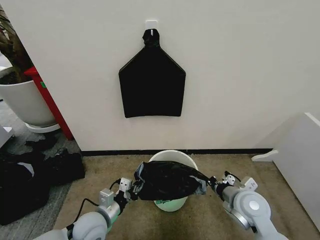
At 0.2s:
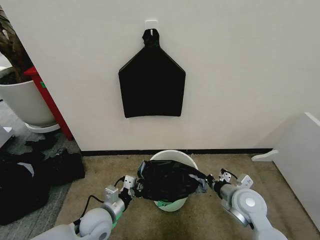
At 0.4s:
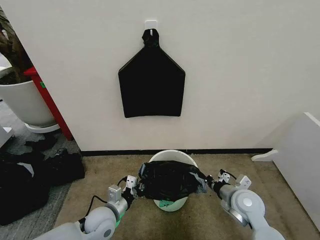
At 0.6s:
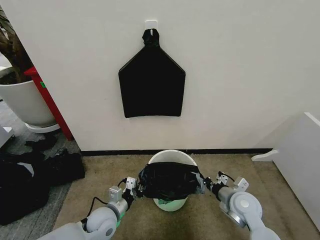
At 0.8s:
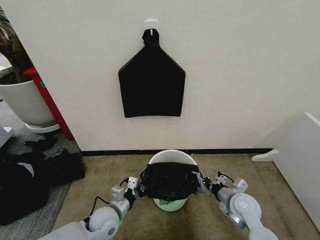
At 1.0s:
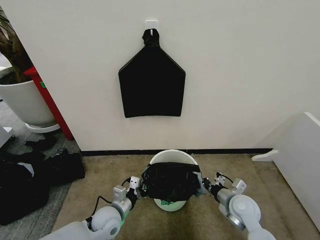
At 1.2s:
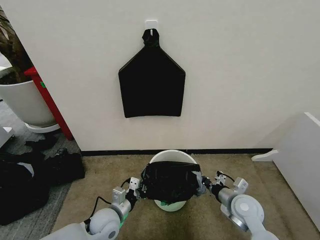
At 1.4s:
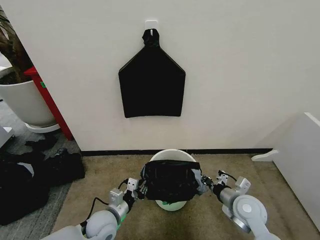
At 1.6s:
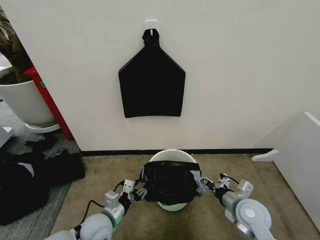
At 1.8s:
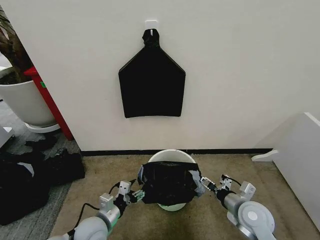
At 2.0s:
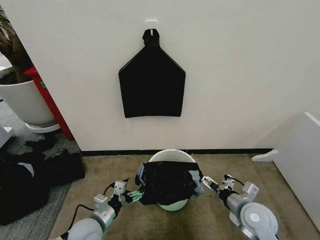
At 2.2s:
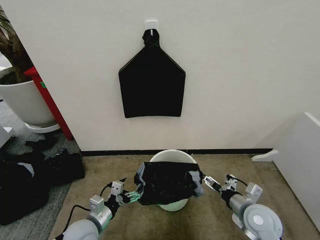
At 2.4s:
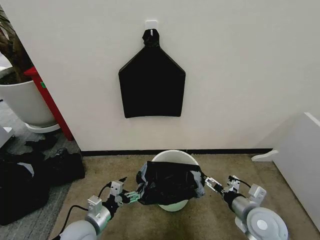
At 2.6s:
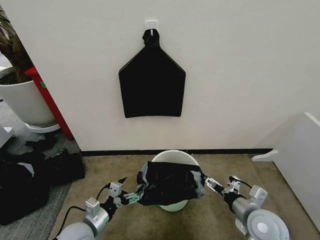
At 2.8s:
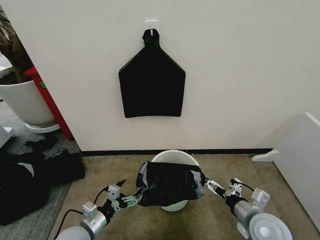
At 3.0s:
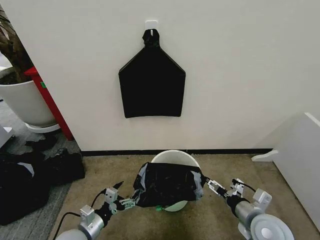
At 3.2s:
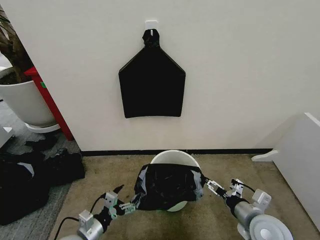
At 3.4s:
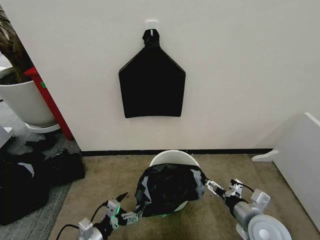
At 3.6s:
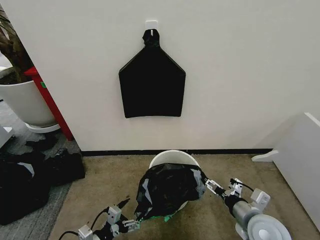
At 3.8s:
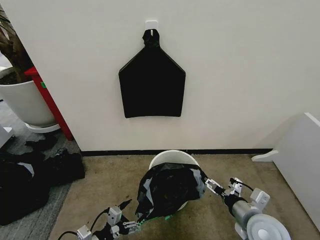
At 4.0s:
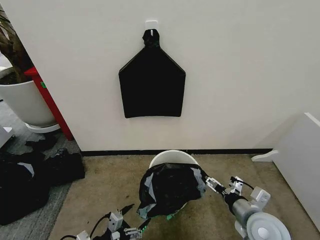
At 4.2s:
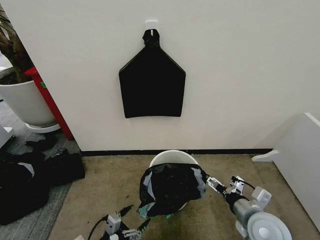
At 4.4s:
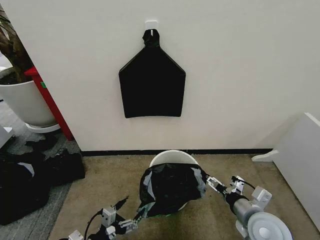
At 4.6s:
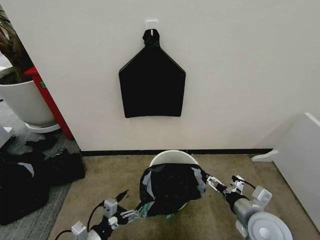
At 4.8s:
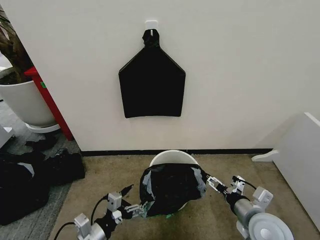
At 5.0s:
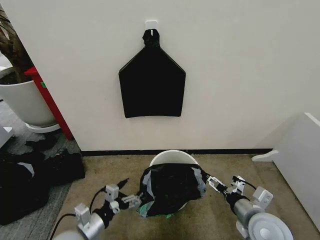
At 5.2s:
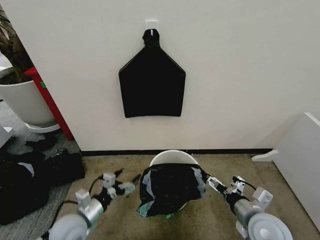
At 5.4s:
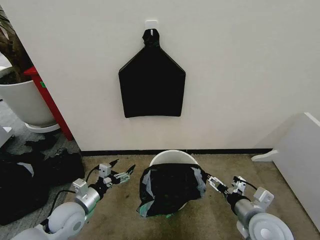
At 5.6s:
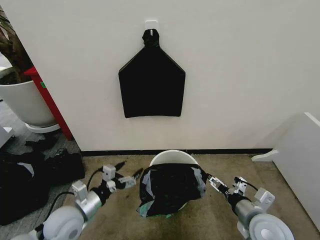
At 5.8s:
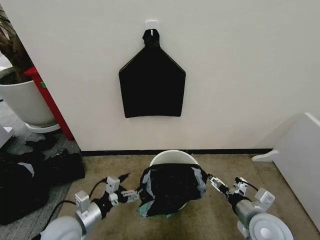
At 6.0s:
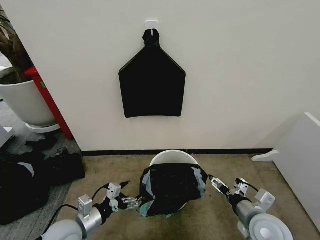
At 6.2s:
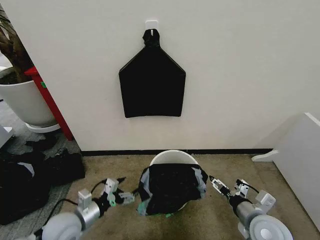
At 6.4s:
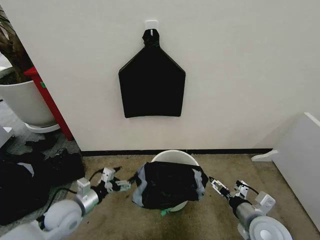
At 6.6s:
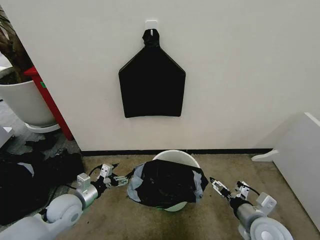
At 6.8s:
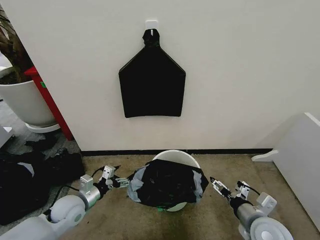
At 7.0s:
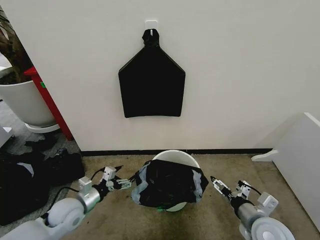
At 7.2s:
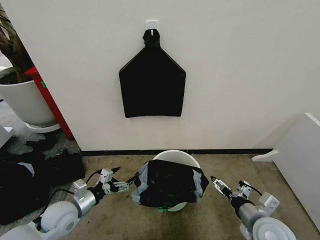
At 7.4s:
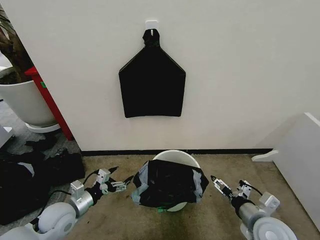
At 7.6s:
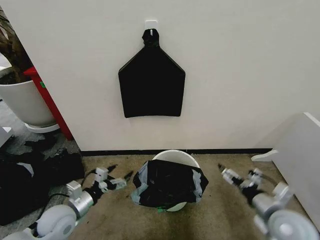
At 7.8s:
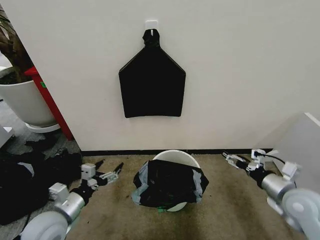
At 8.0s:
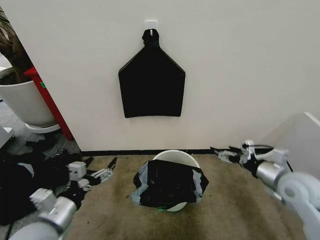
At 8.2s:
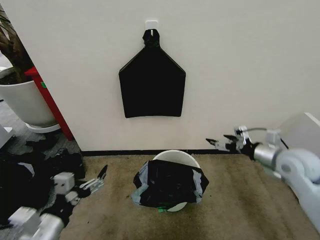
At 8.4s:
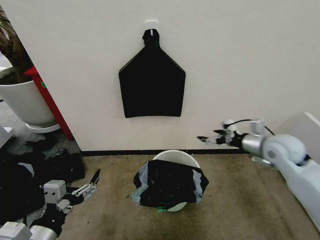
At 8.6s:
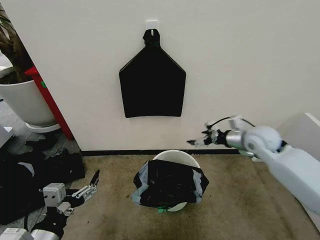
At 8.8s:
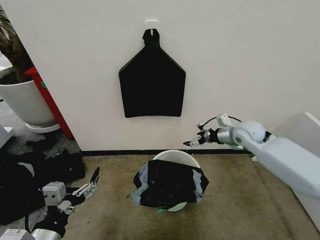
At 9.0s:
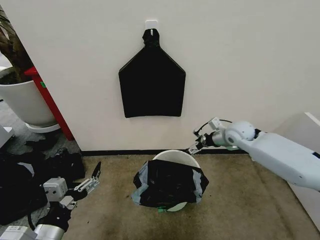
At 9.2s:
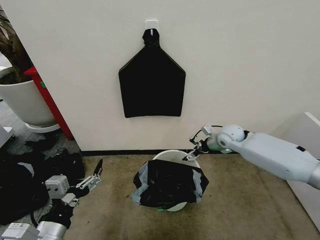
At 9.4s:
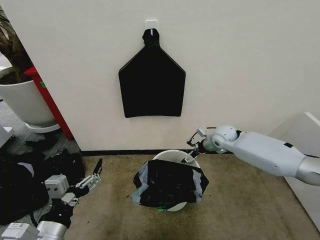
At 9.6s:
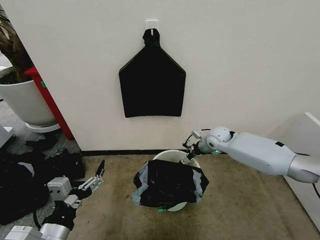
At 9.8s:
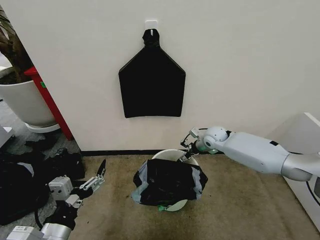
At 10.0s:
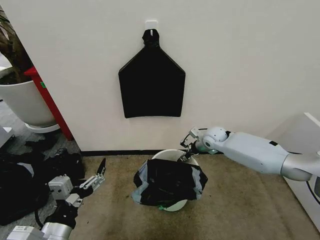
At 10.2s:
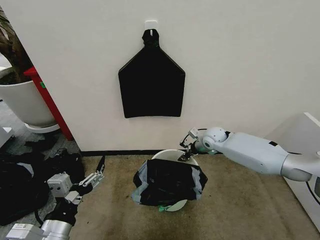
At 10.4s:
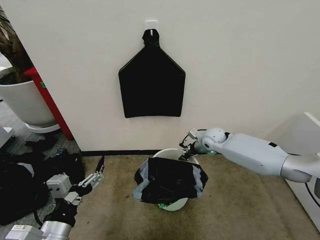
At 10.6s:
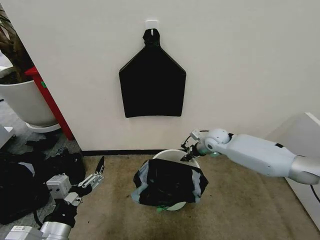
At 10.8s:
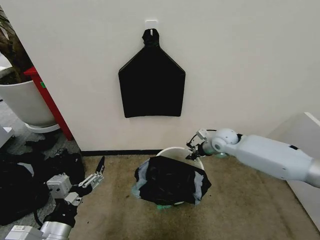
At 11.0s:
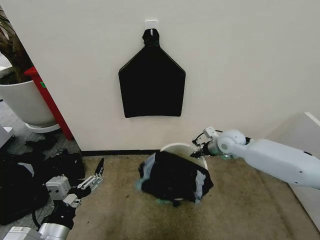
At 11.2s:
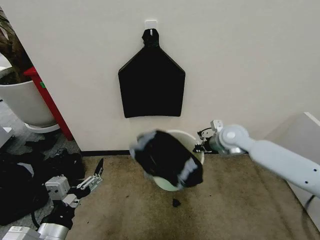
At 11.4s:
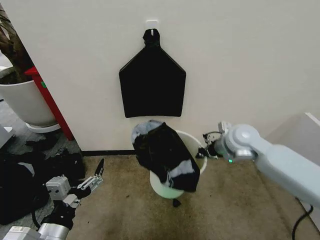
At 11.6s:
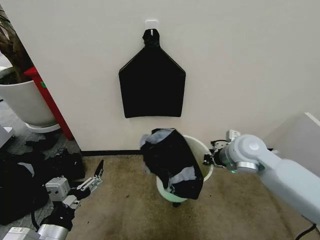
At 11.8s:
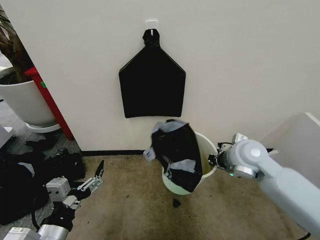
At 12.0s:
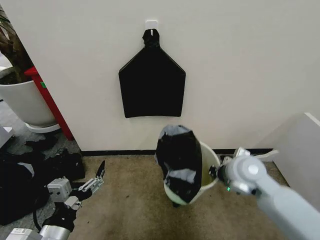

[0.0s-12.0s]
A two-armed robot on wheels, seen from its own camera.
Task of the whole recording: Place the garbage bag over the trash bin.
0.0s to 1.6s: The left gripper opens up; the right gripper opens its fingers.
1.6s to 3.0s: The right gripper moves backward, some 5 cm, and opens its fingers; the left gripper moves to the left, some 5 cm, and opens.
3.0s to 4.4s: The left gripper shifts some 5 cm backward.
4.4s to 6.0s: The left gripper shifts about 10 cm forward.
6.0s to 7.6s: The right gripper shifts about 5 cm to the right.
7.6s to 9.0s: The left gripper heads backward and upward, covering roughly 20 cm; the right gripper goes about 30 cm forward.
9.0s to 10.4s: The right gripper shifts about 10 cm downward and to the left, and closes up.
10.4s to 12.0s: The right gripper is displaced backward and upward by roughly 20 cm.

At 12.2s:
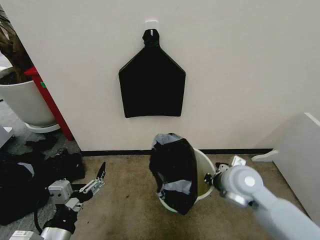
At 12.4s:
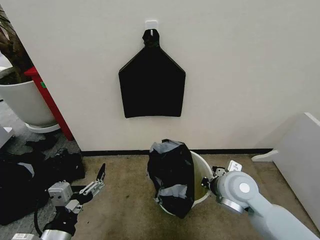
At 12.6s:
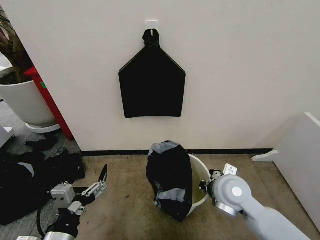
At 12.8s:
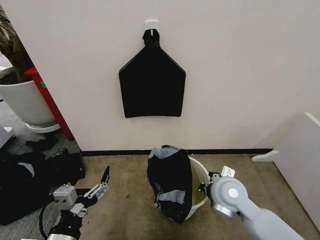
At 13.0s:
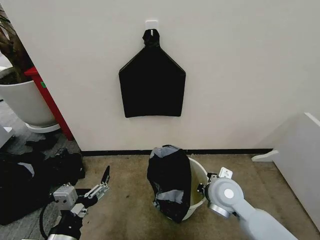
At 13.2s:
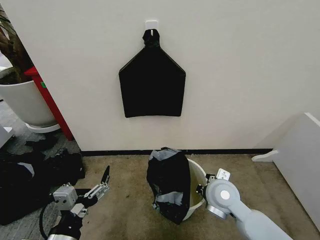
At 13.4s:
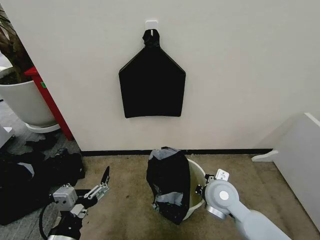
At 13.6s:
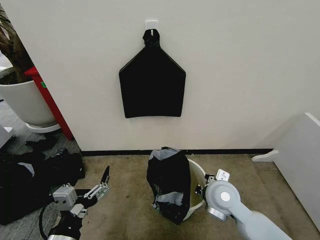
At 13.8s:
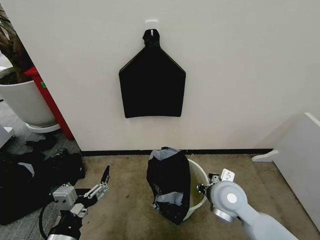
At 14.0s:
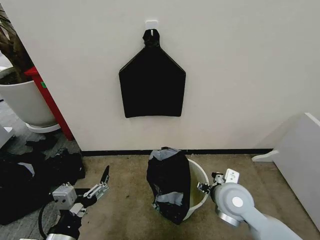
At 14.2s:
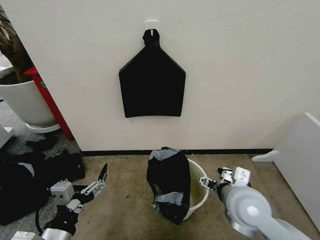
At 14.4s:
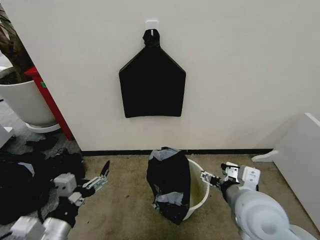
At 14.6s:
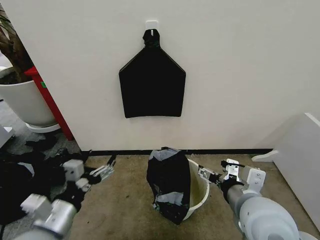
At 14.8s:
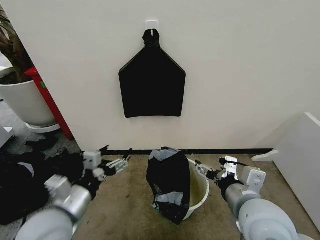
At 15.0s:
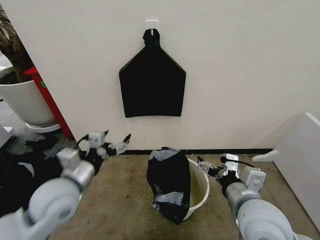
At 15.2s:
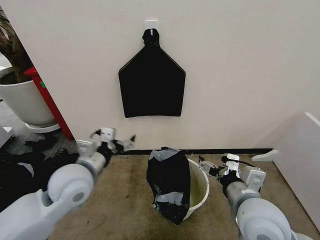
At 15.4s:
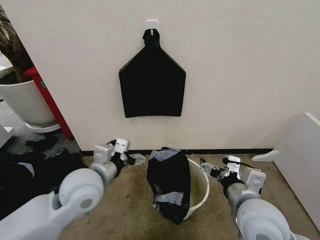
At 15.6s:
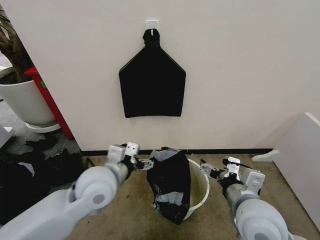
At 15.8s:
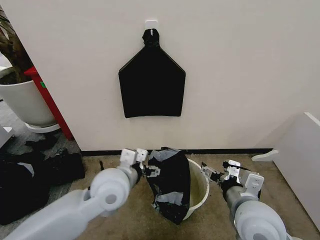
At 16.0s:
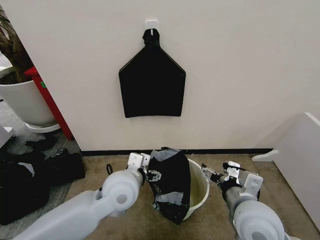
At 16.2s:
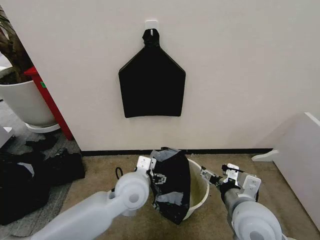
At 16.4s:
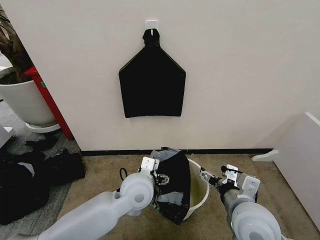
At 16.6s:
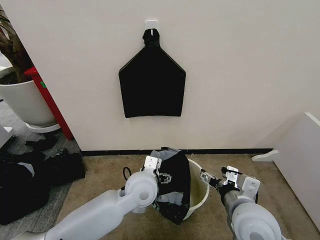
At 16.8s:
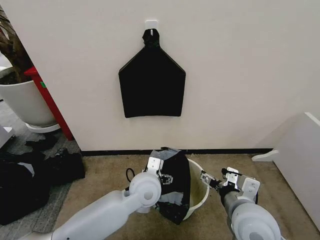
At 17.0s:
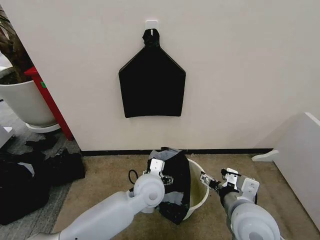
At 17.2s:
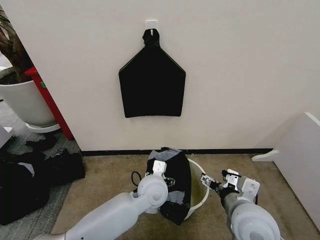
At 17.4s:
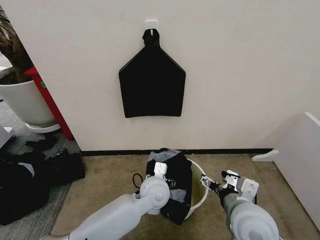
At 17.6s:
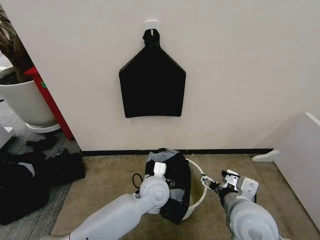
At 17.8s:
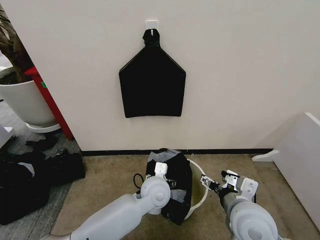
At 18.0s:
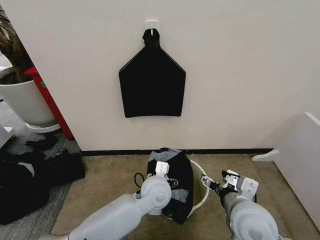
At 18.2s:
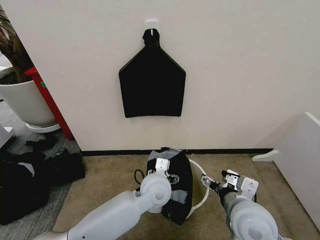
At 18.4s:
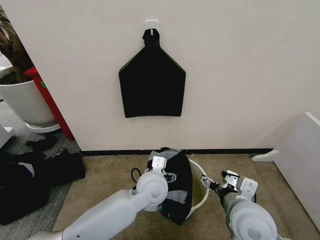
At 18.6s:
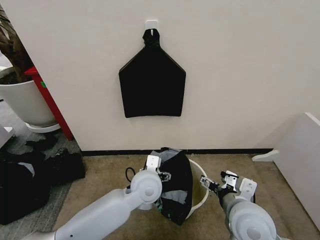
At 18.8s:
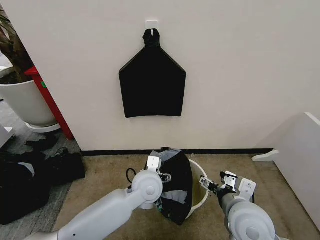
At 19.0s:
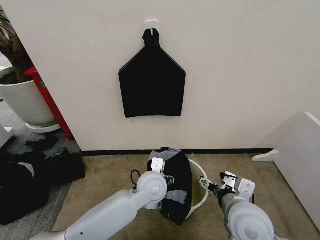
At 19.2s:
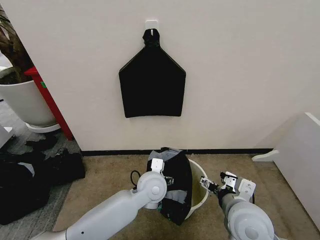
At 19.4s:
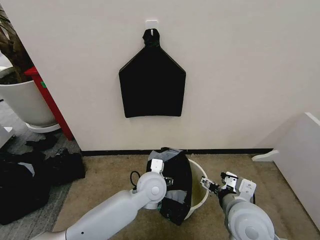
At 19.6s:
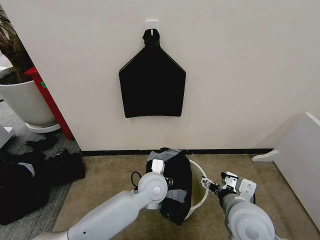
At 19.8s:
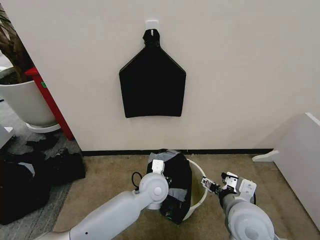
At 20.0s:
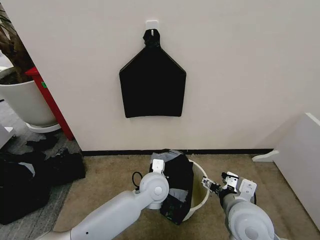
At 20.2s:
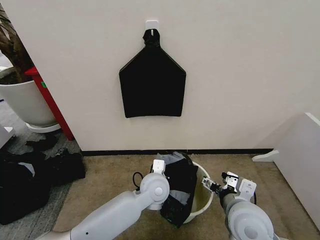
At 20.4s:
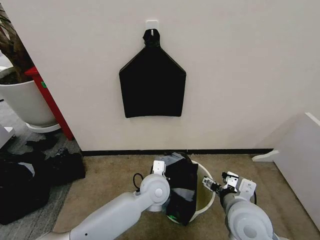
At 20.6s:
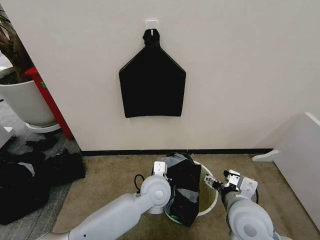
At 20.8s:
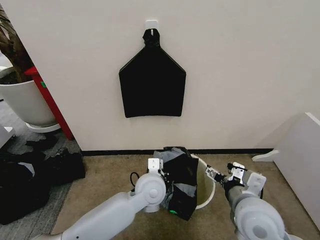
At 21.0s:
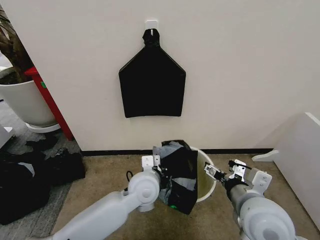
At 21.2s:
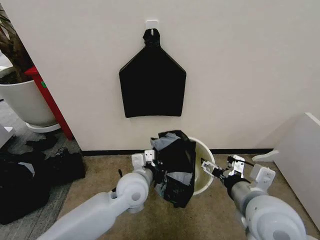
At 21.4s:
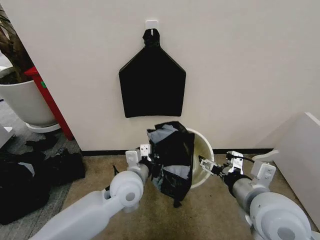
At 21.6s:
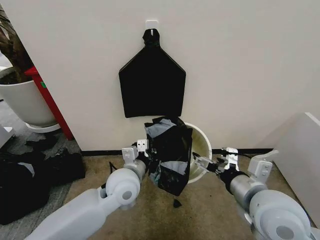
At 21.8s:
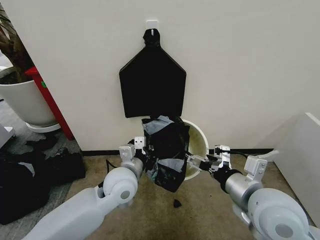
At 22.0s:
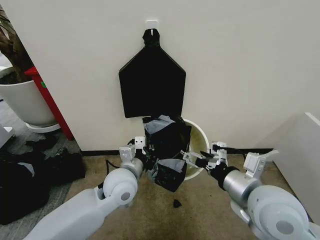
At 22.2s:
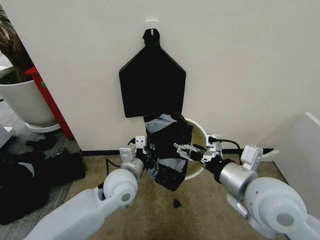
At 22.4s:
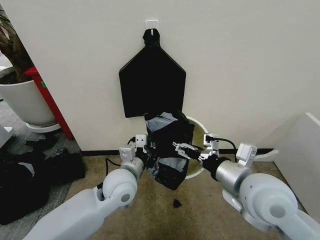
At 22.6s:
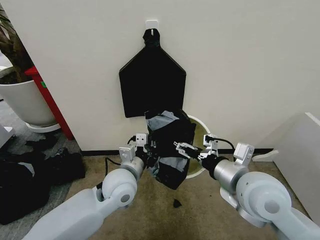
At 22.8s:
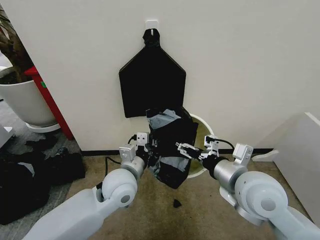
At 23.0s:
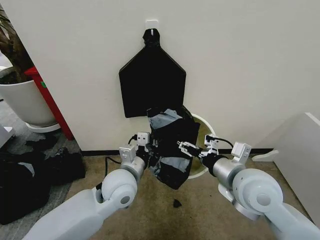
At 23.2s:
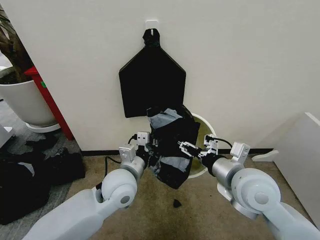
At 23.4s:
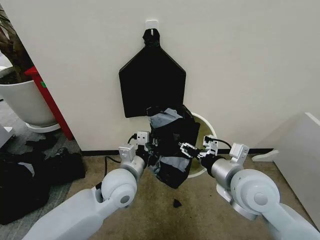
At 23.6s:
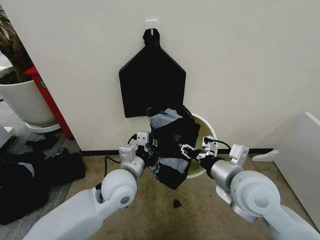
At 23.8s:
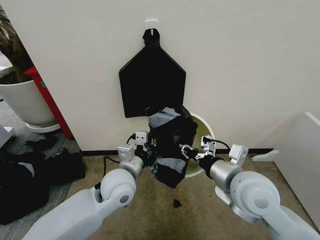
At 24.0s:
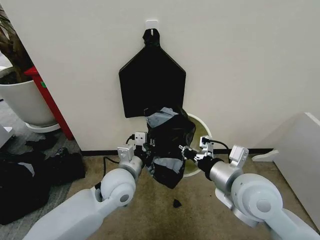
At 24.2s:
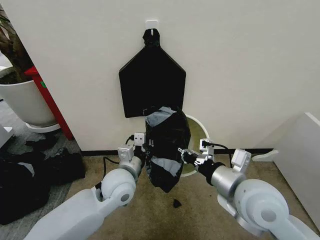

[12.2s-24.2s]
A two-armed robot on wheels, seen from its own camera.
Task of the whole recording: Place the garbage bag over the trash bin.
12.2s to 13.8s: The right gripper shifts by approximately 5 cm, and opens up.
13.8s to 15.2s: The left gripper travels forward by some 20 cm; the right gripper moves backward and upward, some 10 cm, and opens its fingers.
15.2s to 16.6s: The left gripper goes about 20 cm to the right and downward.
18.2s to 19.8s: The grippers make only small movements.
19.8s to 21.2s: The right gripper goes approximately 5 cm upward. Meanwhile the left gripper travels to the left by some 5 cm, and closes up.
21.2s to 22.6s: The left gripper shifts by some 5 cm; the right gripper moves about 5 cm.
22.6s to 24.2s: The right gripper closes its fingers.
